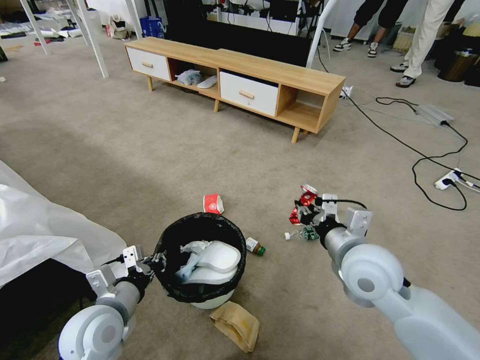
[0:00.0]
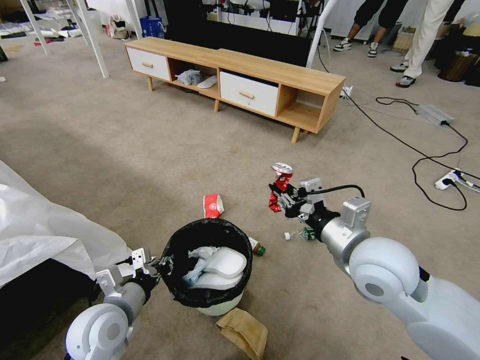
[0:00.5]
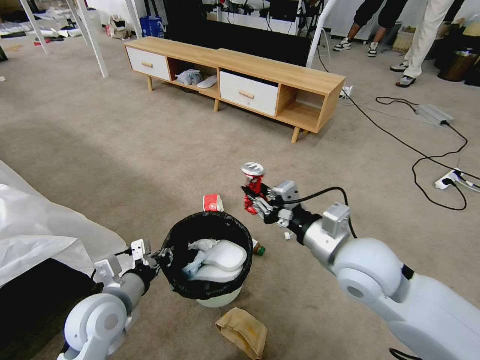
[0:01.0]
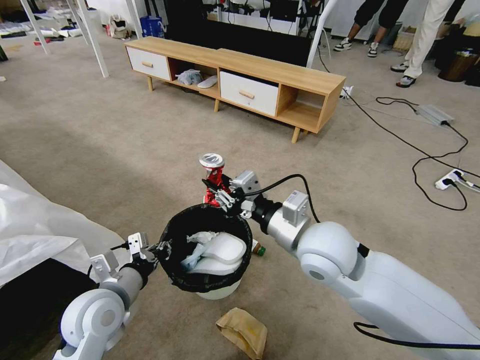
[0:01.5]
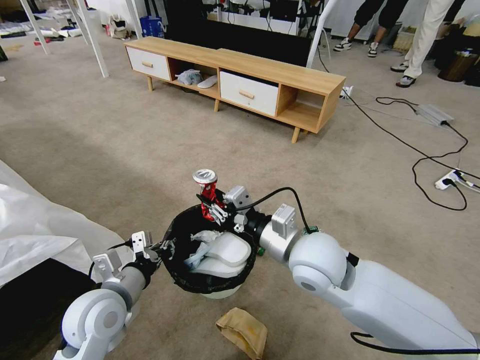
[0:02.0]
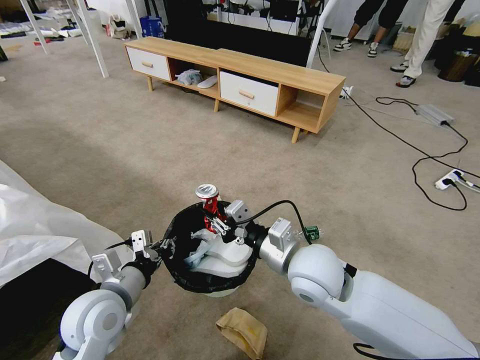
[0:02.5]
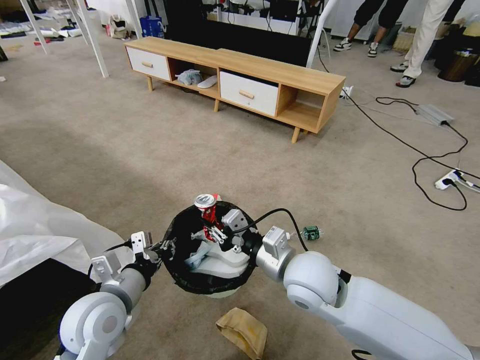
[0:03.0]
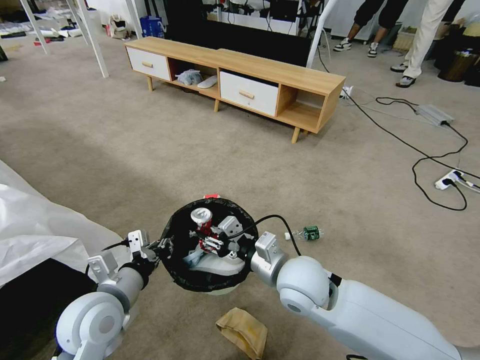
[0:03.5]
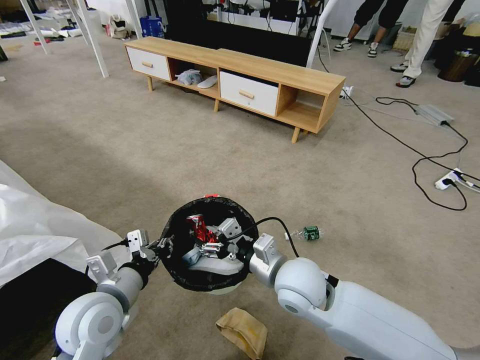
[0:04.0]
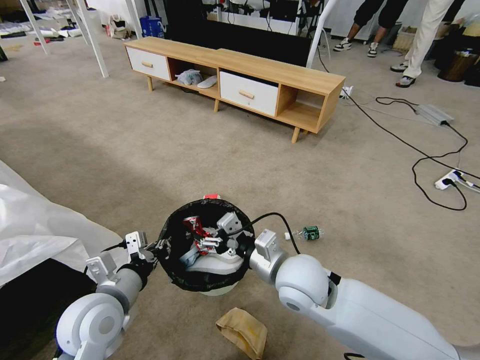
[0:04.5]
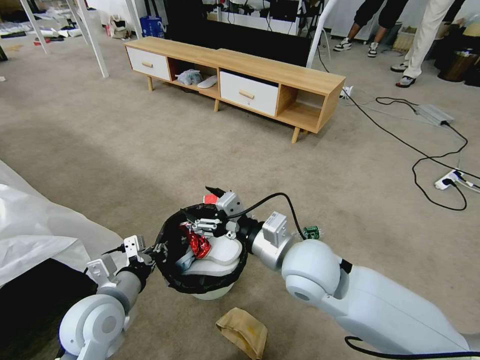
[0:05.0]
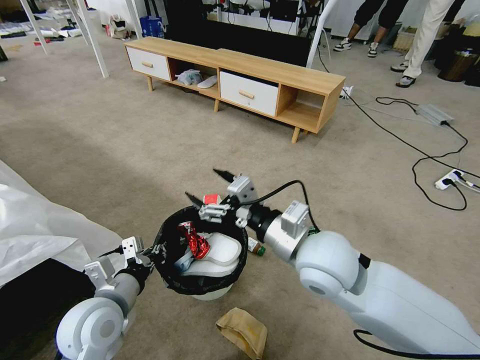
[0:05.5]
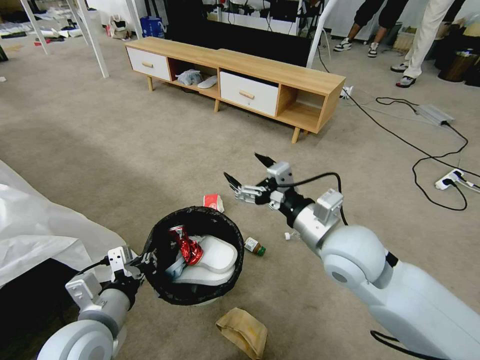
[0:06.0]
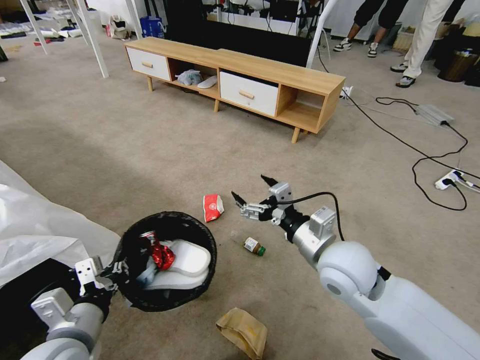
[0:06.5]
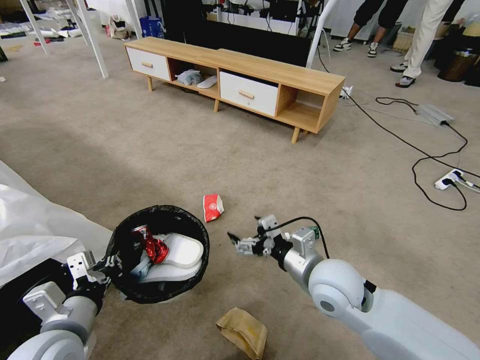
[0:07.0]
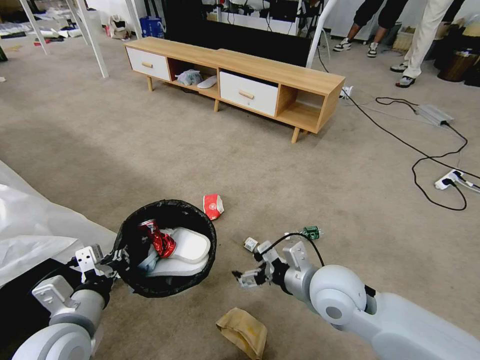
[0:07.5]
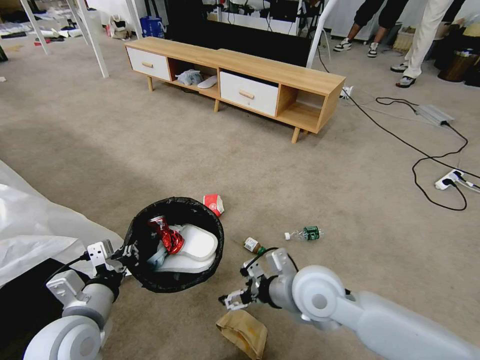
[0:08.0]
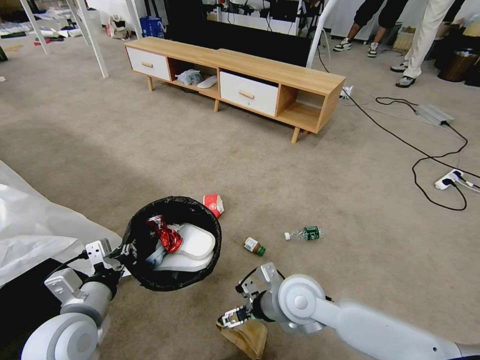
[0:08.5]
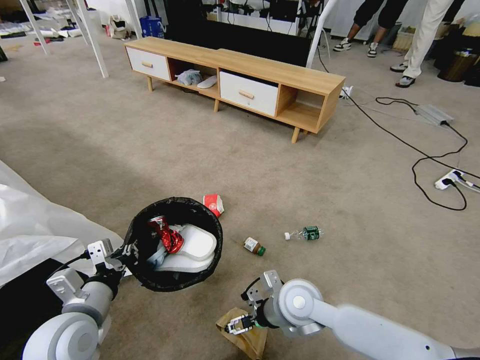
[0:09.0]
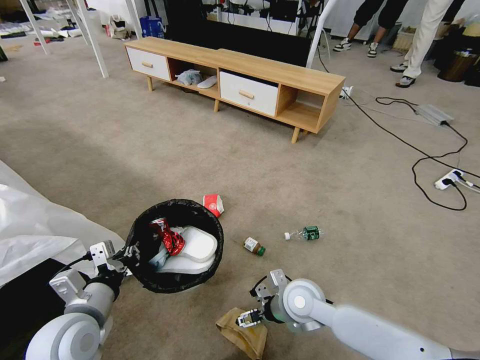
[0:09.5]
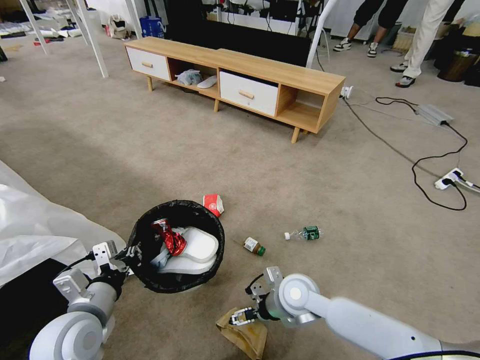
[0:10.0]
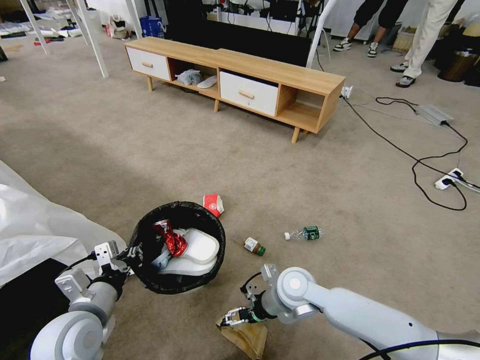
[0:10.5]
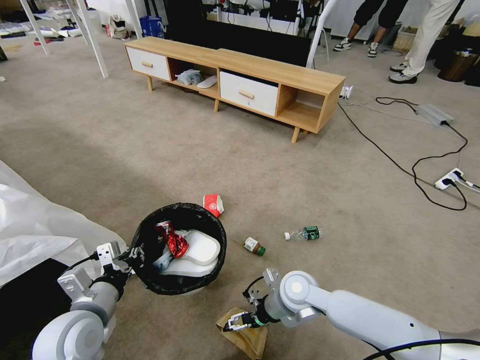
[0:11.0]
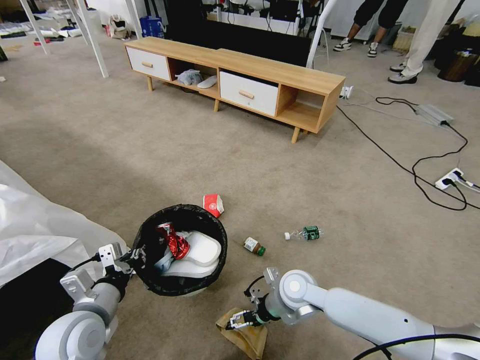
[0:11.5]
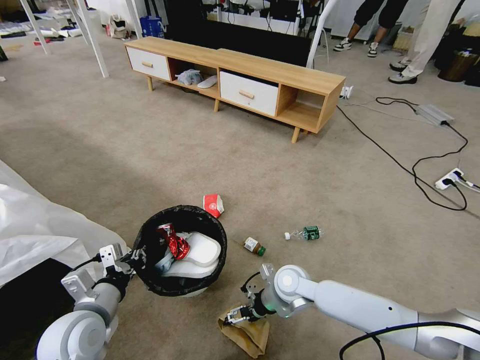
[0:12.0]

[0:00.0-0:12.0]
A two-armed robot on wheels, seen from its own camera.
Task of the whole recording: Pick up the trash bin and place the garbage on the floor into it.
0:00.0 to 0:02.0: The right gripper heads to the left, covering about 10 cm.
0:02.0 to 0:04.0: The right gripper is displaced downward by some 5 cm, and opens up.
0:04.0 to 0:06.0: The right gripper moves upward and to the right, about 10 cm.
0:06.0 to 0:08.0: The right gripper shifts some 10 cm downward.
0:08.0 to 0:10.0: The right gripper travels downward by some 10 cm.
0:10.0 to 0:12.0: The grippers stay close to where they were, moving slightly.

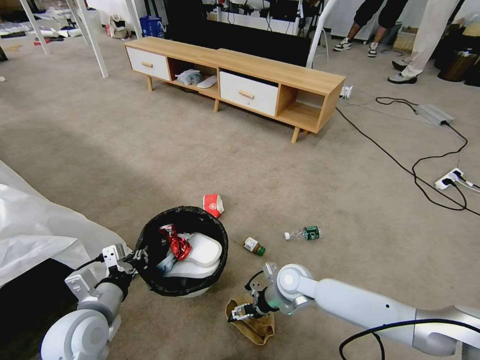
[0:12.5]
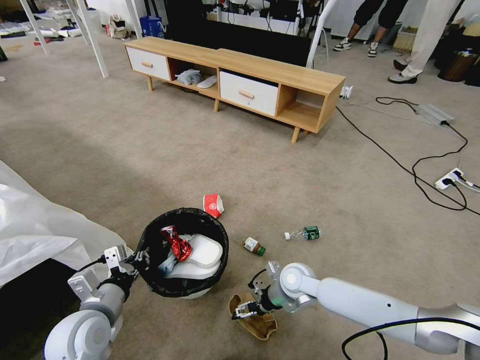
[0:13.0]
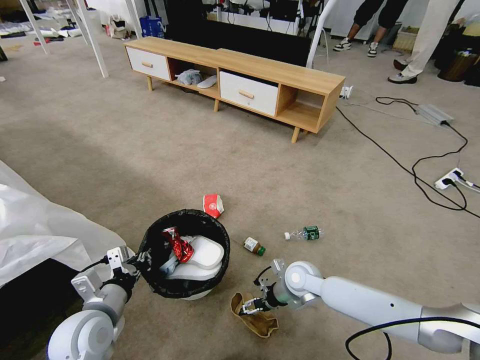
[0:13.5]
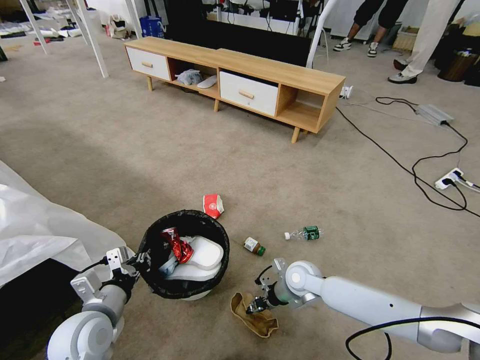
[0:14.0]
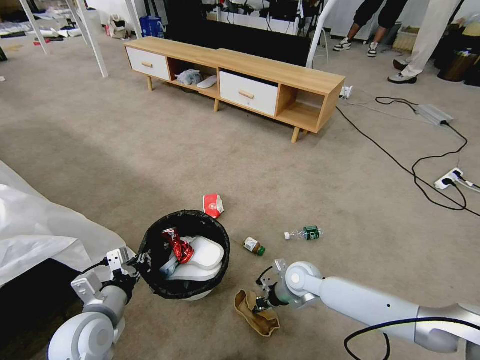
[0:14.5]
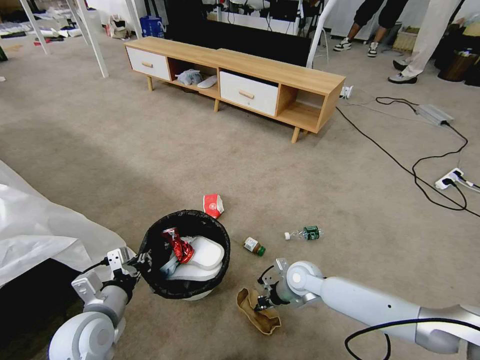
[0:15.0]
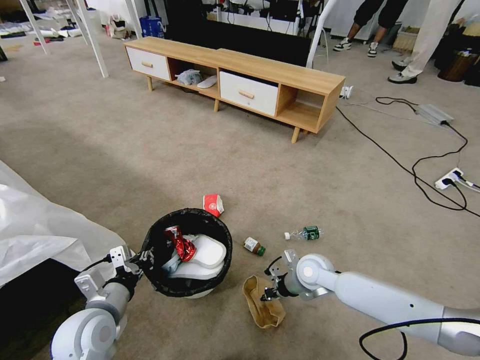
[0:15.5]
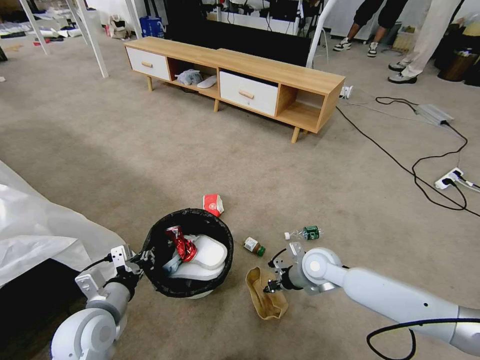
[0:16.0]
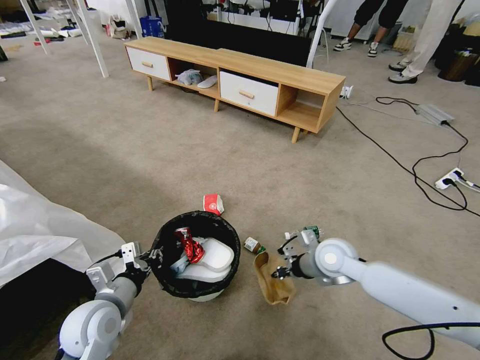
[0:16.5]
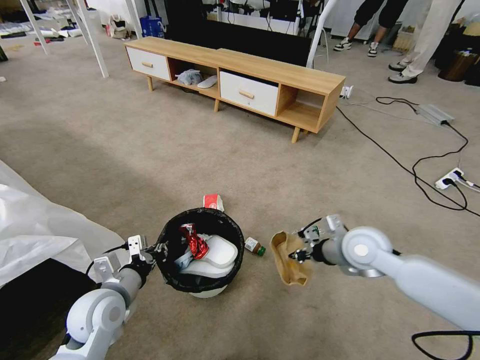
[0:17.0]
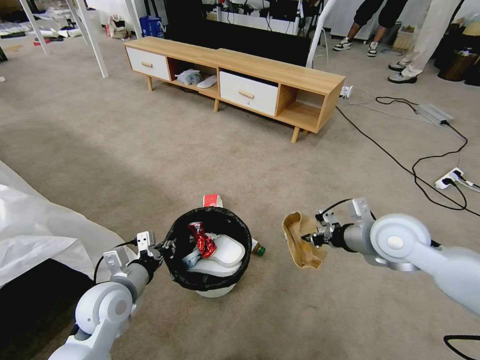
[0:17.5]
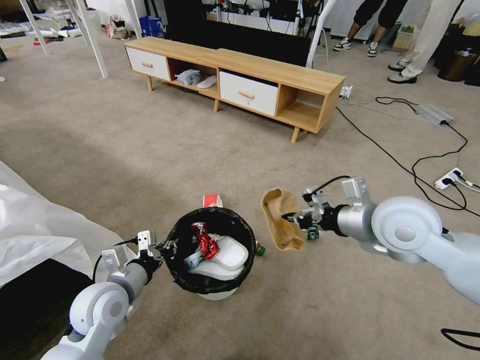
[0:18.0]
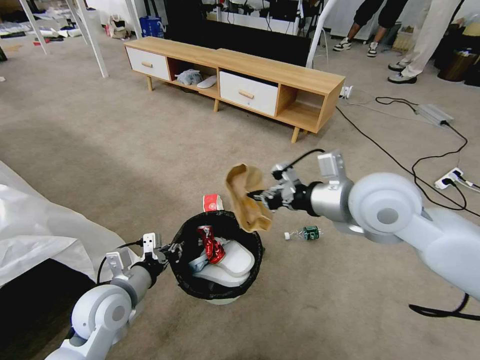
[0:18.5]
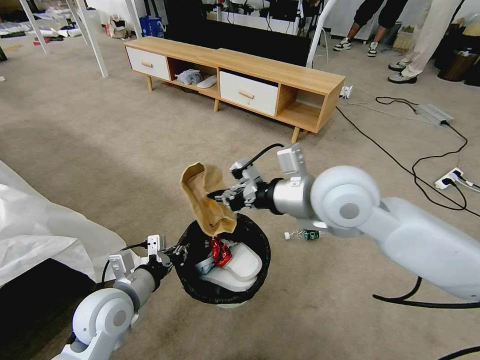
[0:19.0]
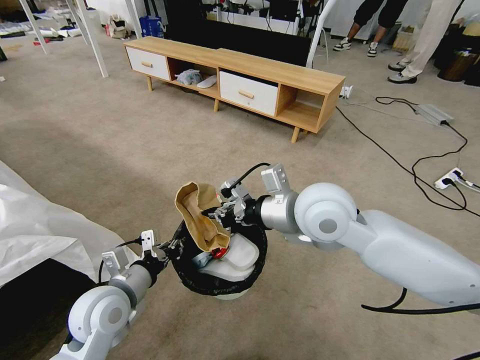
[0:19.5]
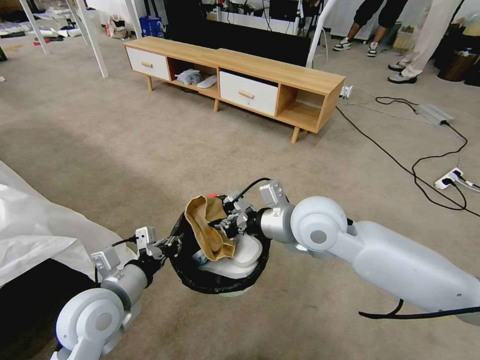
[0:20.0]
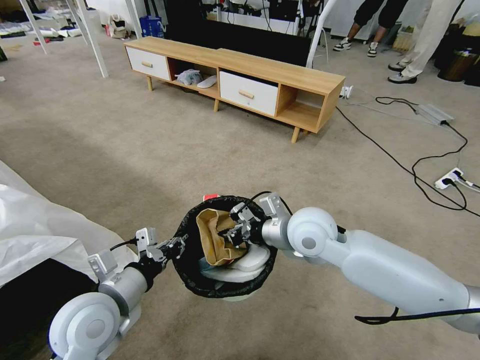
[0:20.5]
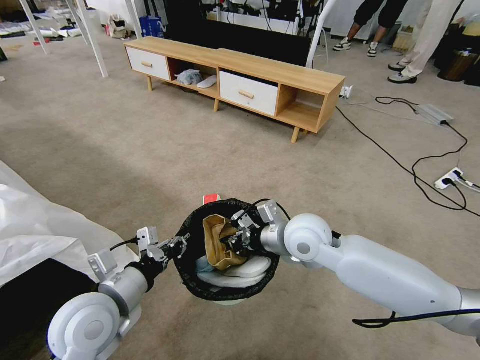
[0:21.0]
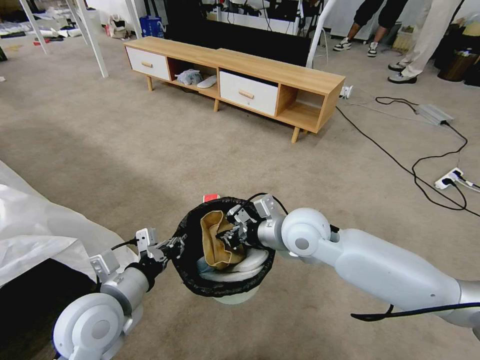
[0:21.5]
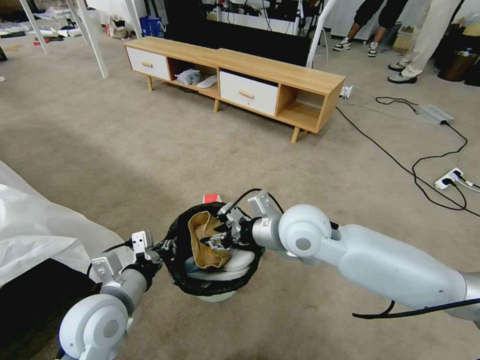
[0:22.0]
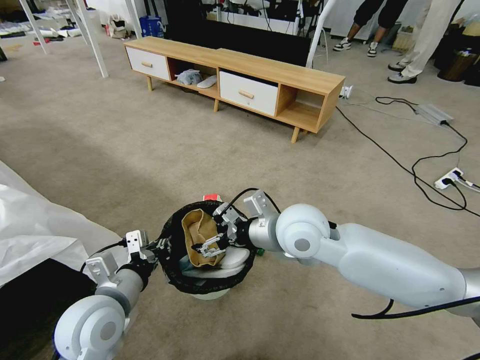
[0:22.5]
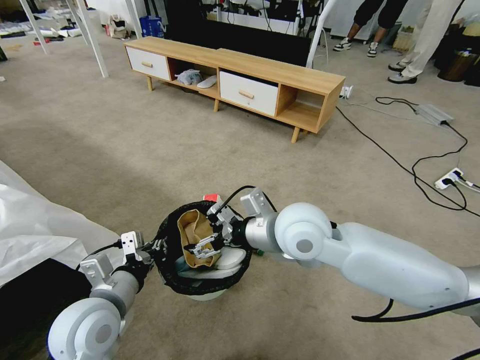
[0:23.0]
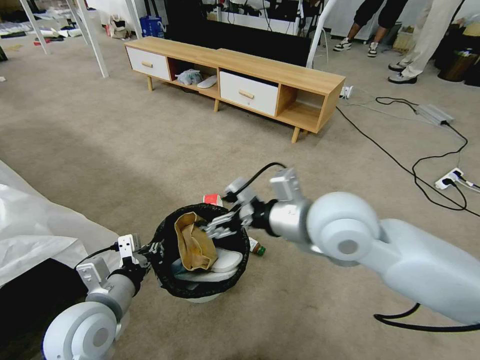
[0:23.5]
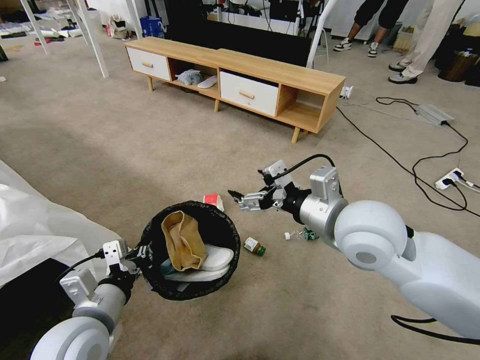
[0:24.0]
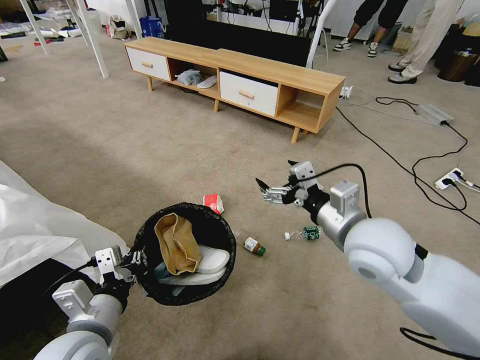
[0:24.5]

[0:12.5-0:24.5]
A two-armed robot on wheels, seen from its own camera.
Task of the whole recording: Pick up the trash bin and place the garbage on the floor into it.
0:12.5 to 0:14.5: The right gripper closes up.
0:14.5 to 0:16.5: The right gripper shifts roughly 15 cm upward and to the right.
0:16.5 to 0:18.5: The right gripper moves upward, about 25 cm.
0:18.5 to 0:20.5: The left gripper heads upward, covering approximately 5 cm. Meanwhile the right gripper shifts approximately 15 cm downward and to the left.
0:20.5 to 0:22.5: The right gripper opens up.
0:22.5 to 0:24.5: The left gripper heads backward, covering about 5 cm. Meanwhile the right gripper shifts approximately 10 cm to the right.

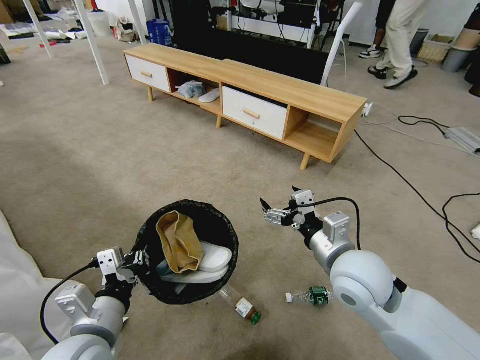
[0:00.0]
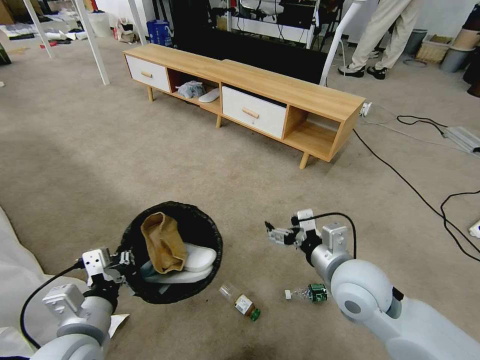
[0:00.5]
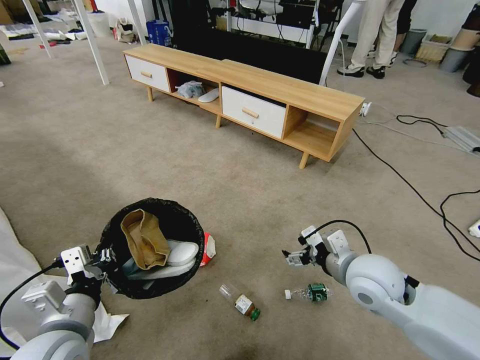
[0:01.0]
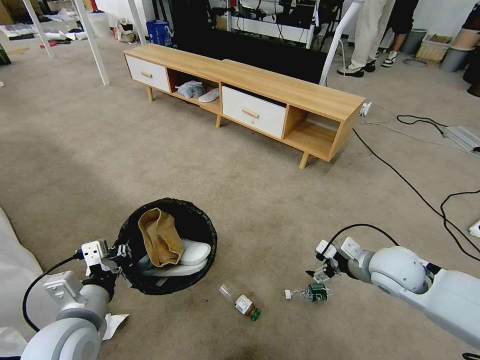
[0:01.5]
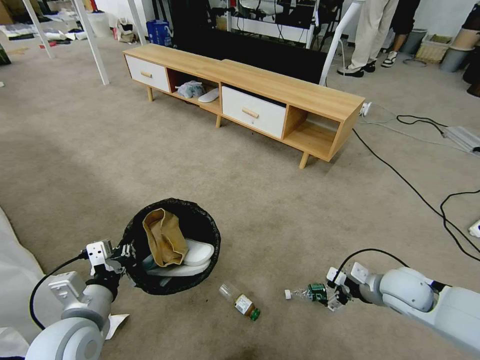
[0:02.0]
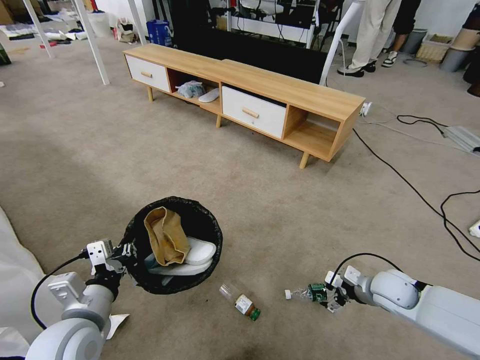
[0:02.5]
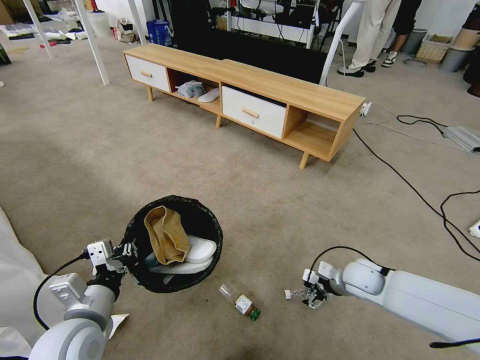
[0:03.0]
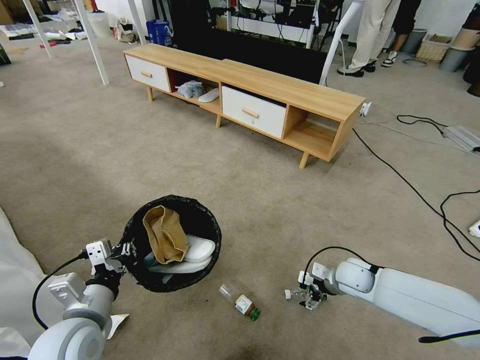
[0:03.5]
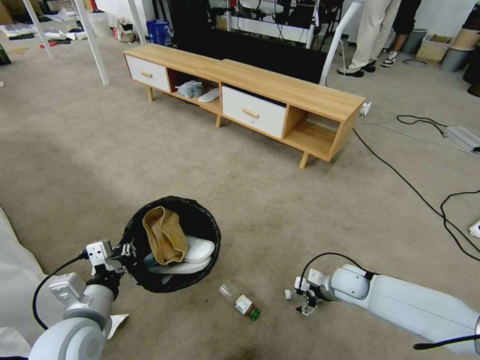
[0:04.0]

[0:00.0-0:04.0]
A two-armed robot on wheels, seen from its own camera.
Task of the whole recording: Pick up the trash bin and place the garbage on the floor into it.
0:00.0 to 0:02.0: The right gripper heads to the right and downward, covering roughly 20 cm; the left gripper ends up some 5 cm from where it was.
0:02.0 to 0:04.0: The right gripper is displaced downward, to the left and forward by about 15 cm.
